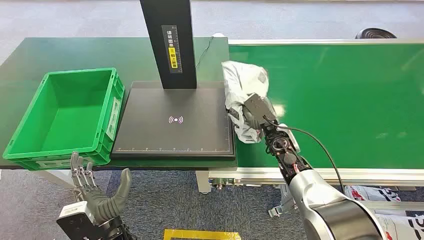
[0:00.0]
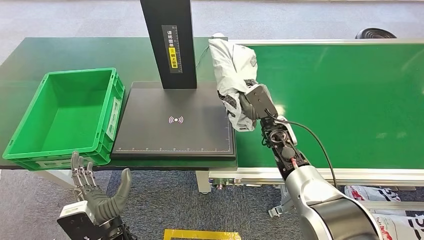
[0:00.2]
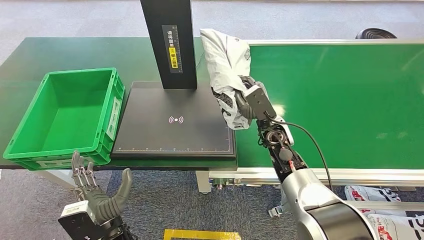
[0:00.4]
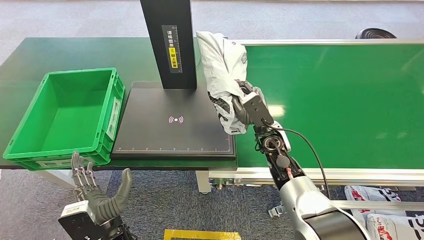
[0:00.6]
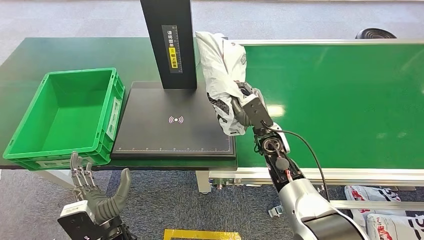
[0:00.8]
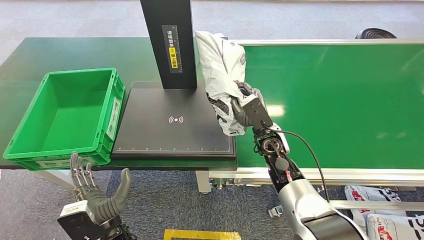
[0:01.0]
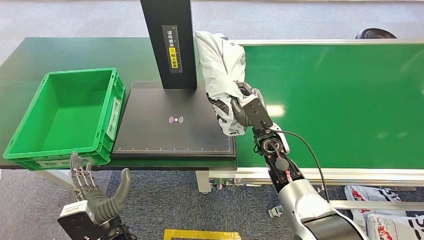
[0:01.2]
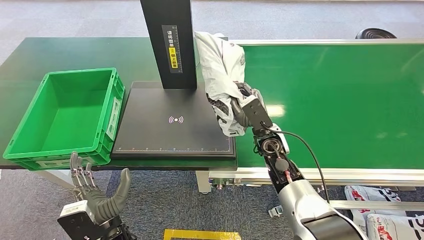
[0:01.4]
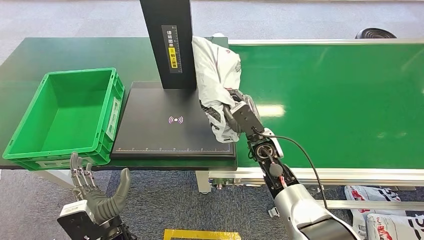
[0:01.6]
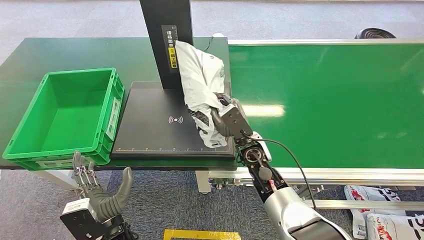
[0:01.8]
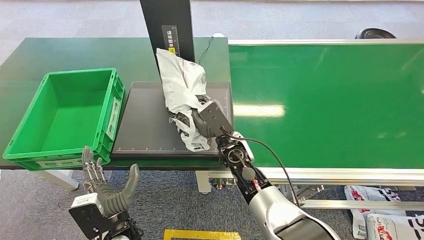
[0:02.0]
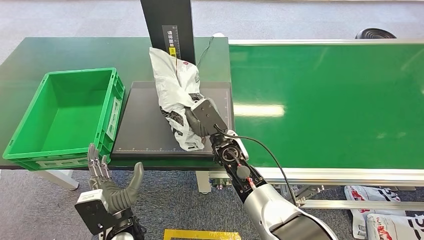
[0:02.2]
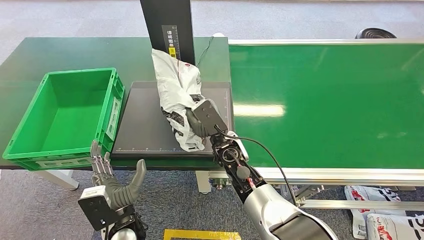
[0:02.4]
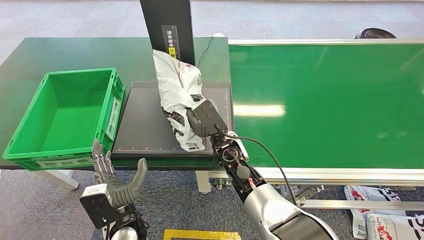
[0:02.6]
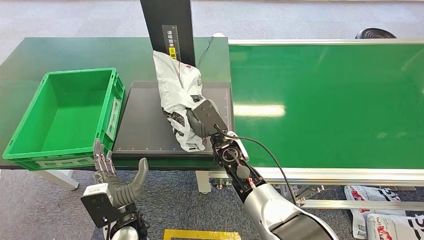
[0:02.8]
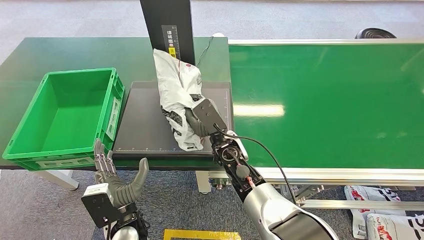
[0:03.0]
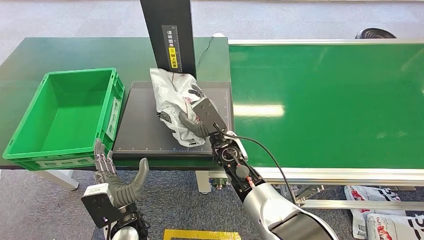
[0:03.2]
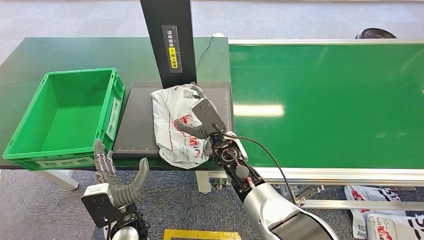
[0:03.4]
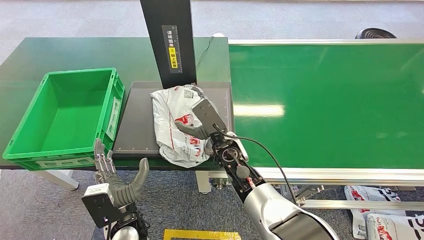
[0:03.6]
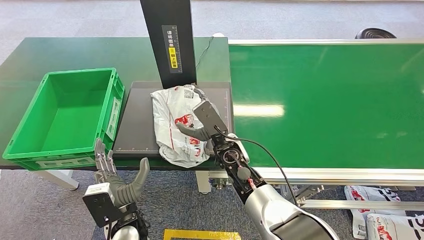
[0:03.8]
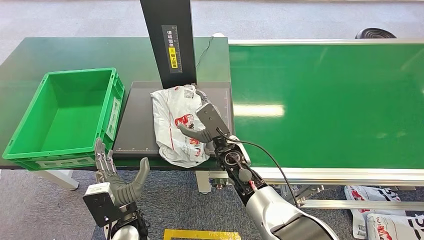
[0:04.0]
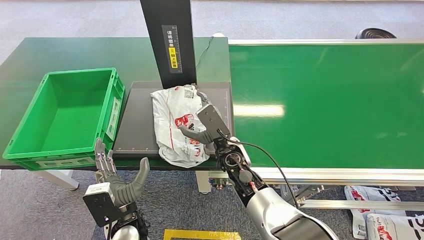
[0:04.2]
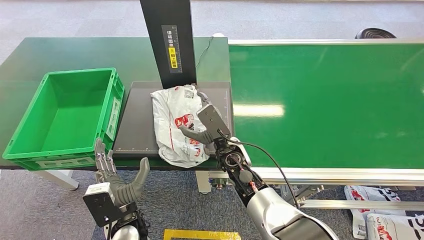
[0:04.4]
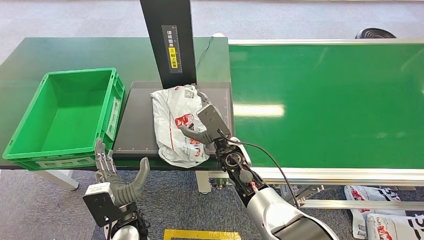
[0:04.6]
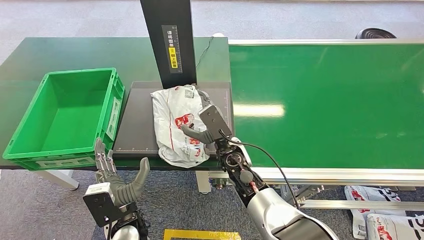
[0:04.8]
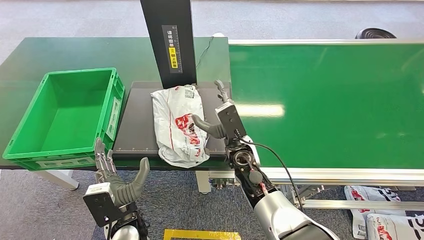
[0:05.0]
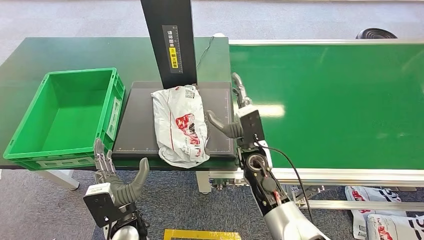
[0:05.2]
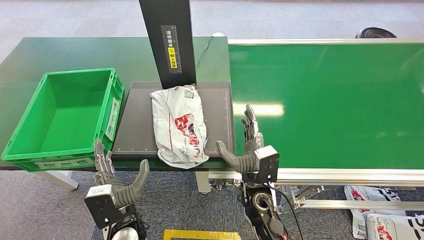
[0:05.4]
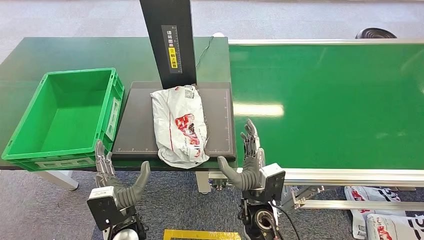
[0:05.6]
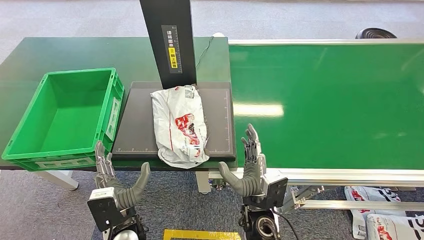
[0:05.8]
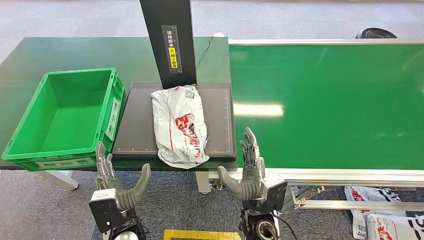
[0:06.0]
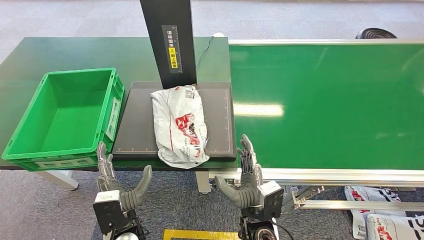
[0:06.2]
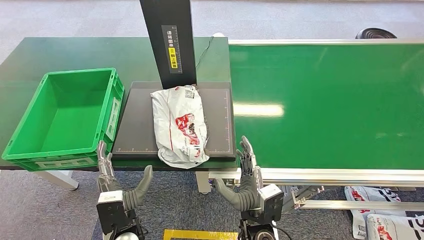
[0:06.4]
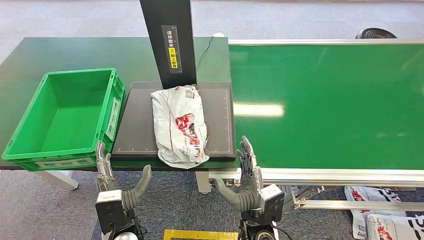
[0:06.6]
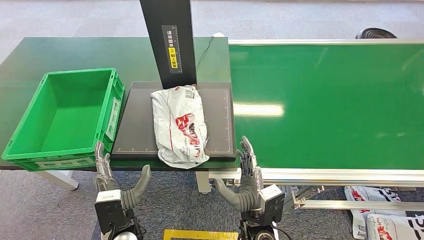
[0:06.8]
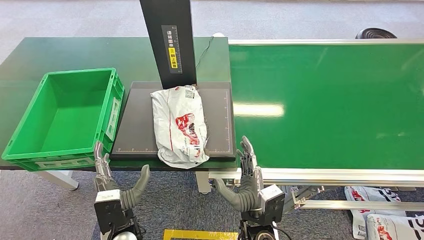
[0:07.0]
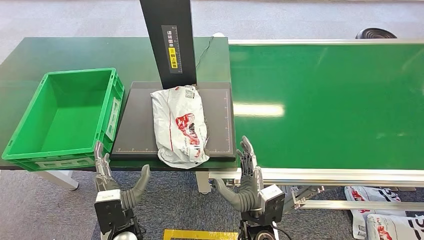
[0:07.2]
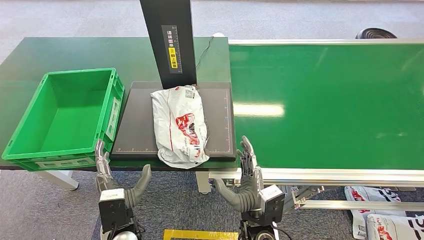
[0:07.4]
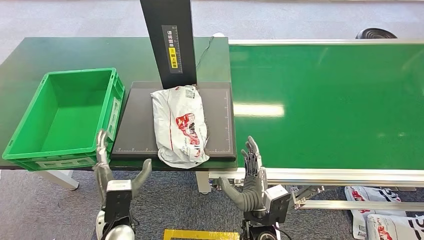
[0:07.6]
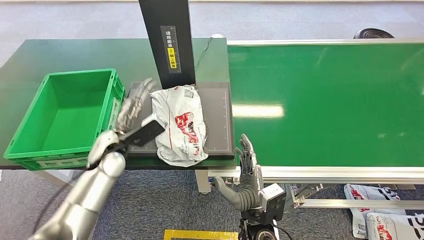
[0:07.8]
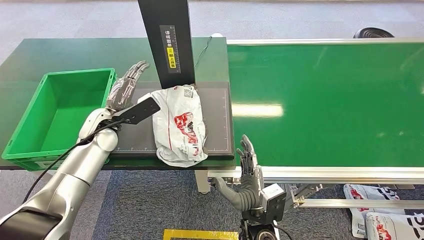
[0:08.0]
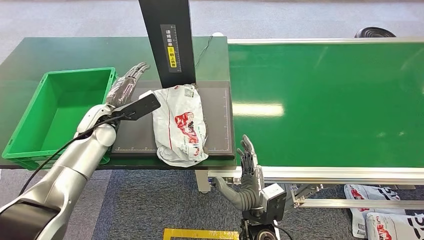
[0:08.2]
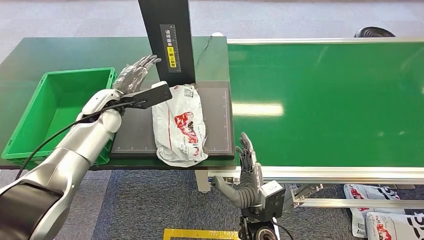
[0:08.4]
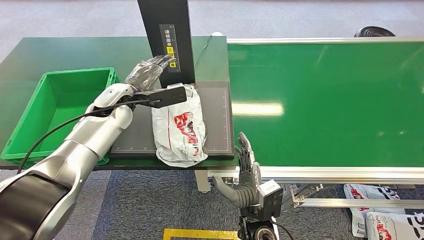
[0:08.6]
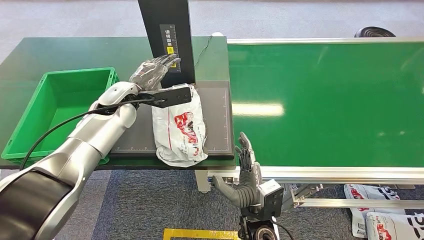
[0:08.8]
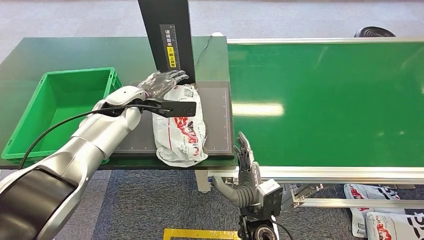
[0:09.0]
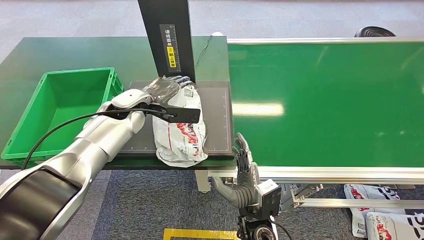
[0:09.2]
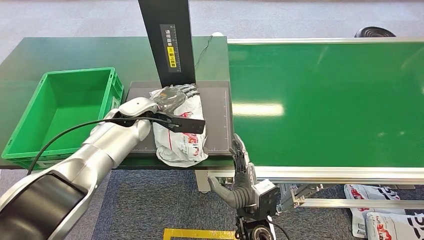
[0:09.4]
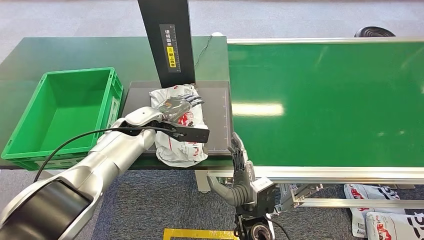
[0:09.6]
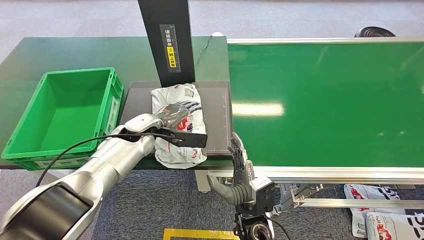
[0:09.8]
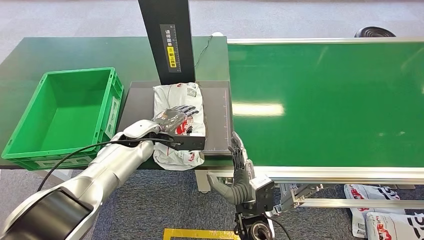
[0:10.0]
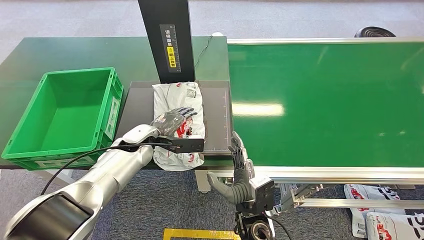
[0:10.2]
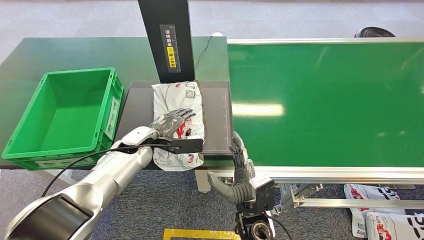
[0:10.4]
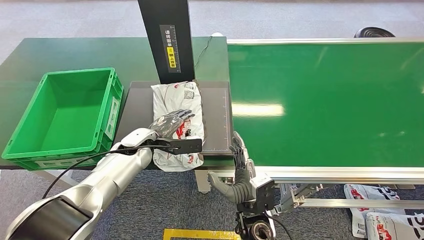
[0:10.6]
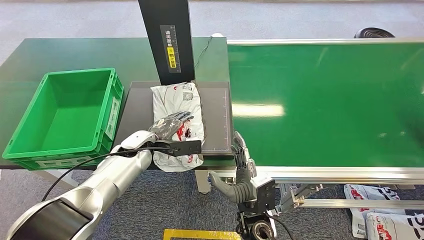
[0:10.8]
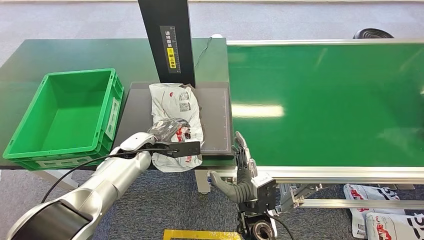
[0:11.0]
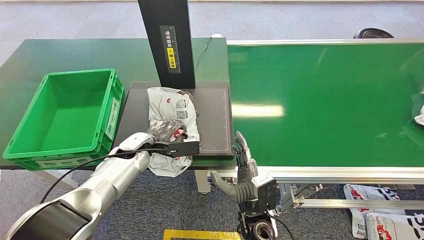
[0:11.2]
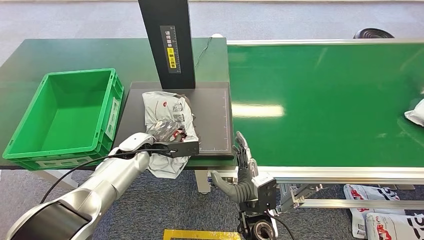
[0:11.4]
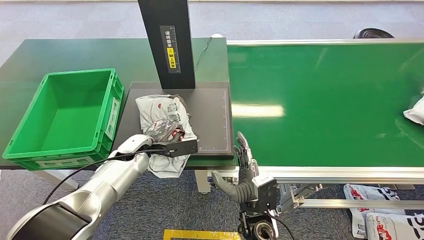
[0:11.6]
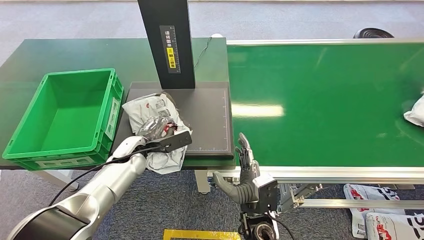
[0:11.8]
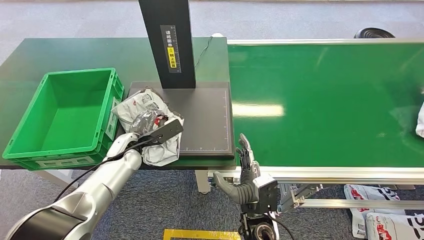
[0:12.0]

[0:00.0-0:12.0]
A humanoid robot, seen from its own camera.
Task of the whole recording: Weigh the package on the weighing device and place it in the left basket.
Step, 0:00.0 to 0:00.8: Pick up the package from the conveyor belt.
Step, 0:01.0 to 0:04.6: Place the package onto the inbound machine.
0:01.6 to 0:03.0: The right hand goes some 10 cm to the left.
0:03.0 to 0:04.4: The hands make only small movements.
0:04.4 to 0:06.0: The right hand goes roughly 15 cm backward.
0:06.0 to 0:07.6: The hands stay close to where they were, moving slightly.
0:09.0 to 0:10.4: The left hand moves downward, some 10 cm.

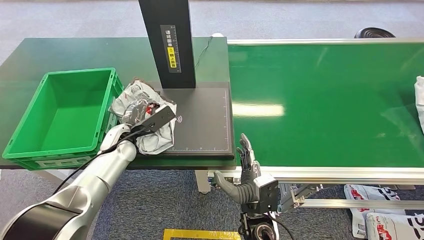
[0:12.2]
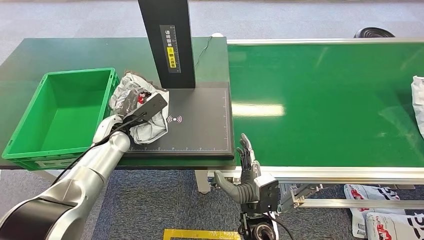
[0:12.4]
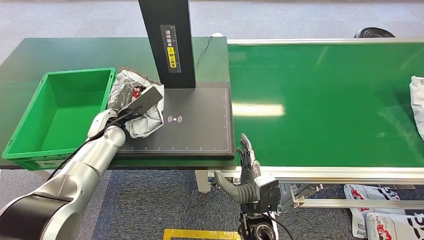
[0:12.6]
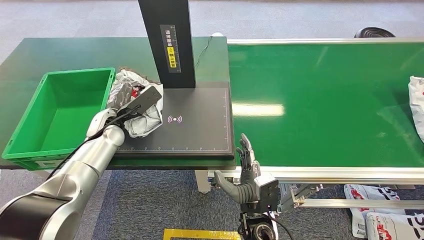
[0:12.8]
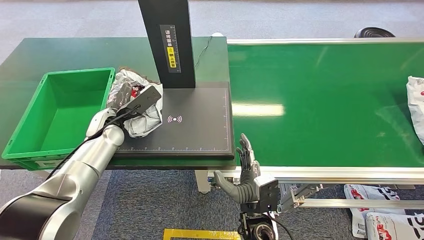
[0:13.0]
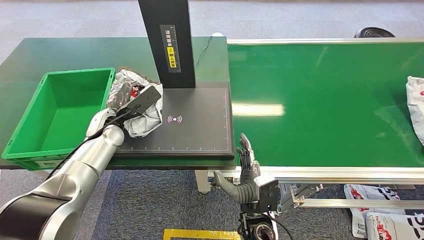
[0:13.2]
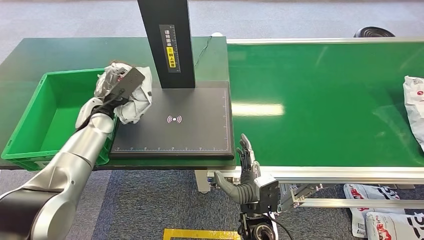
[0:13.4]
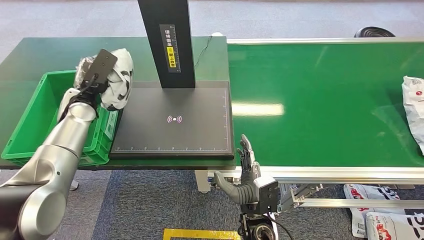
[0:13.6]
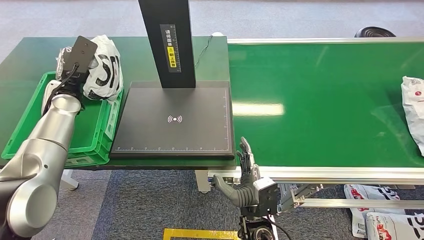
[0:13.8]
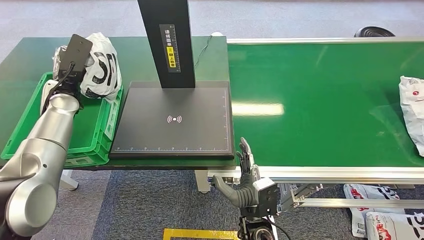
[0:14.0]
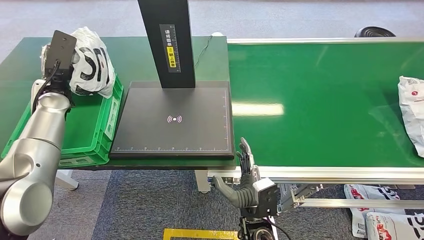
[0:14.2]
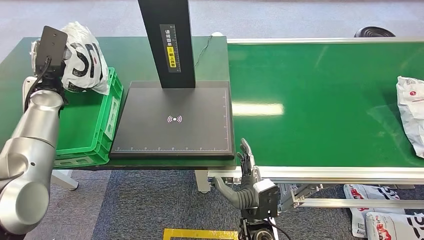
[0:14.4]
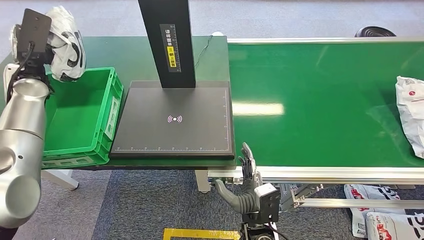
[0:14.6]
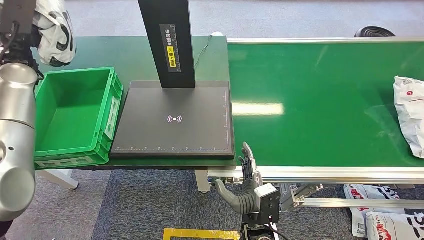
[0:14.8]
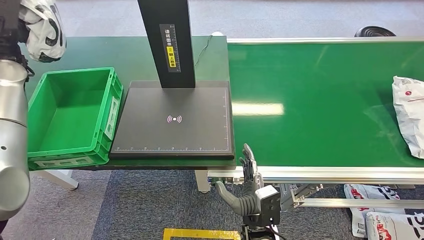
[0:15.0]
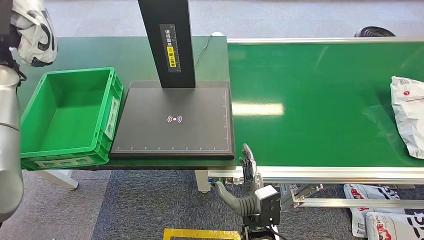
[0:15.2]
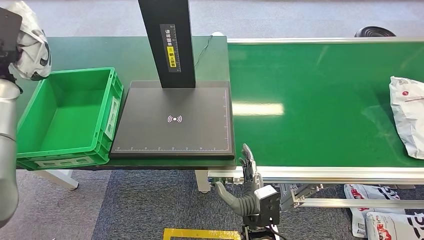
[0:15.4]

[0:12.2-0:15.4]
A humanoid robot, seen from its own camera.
Task of the whole recording: Weigh the package on the weighing device and place it in the left basket.
Step, 0:13.8 to 0:15.4: Place the package into the parcel locker.
0:13.8 to 0:15.4: The left hand moves to the left and upward, approximately 15 cm.
